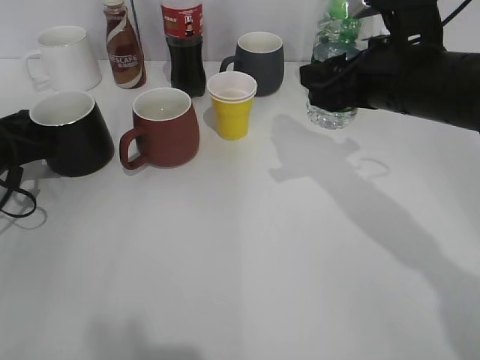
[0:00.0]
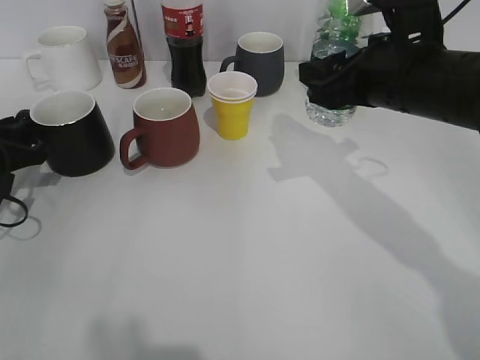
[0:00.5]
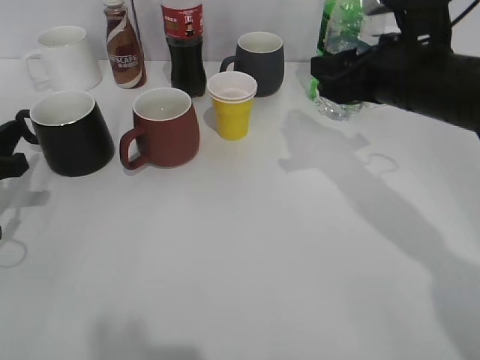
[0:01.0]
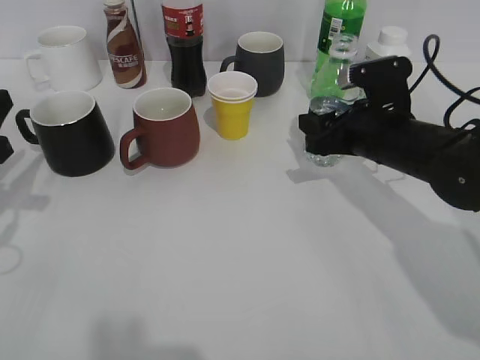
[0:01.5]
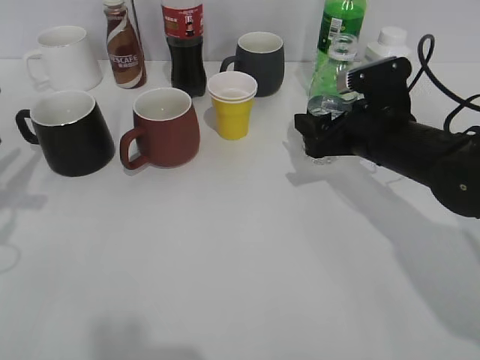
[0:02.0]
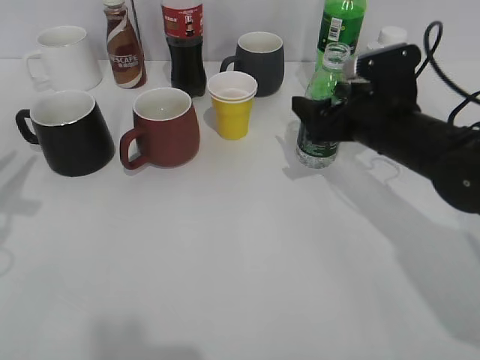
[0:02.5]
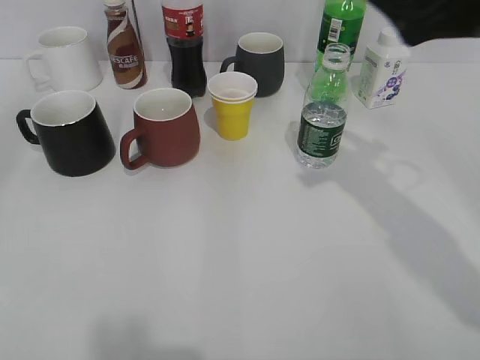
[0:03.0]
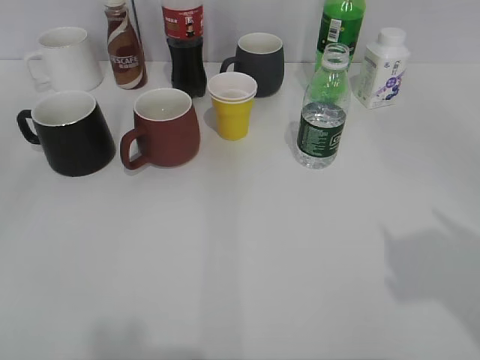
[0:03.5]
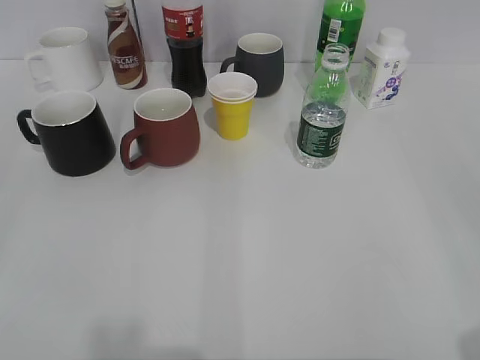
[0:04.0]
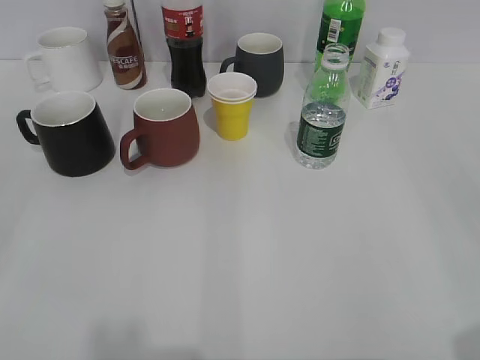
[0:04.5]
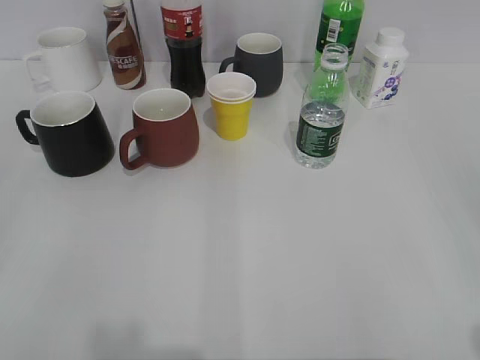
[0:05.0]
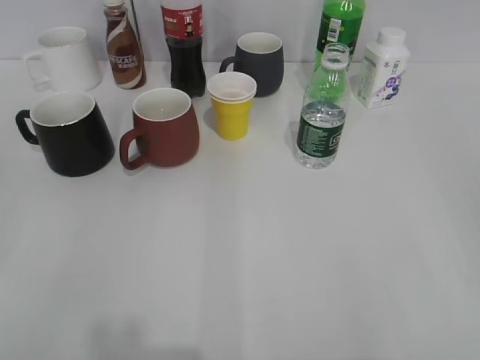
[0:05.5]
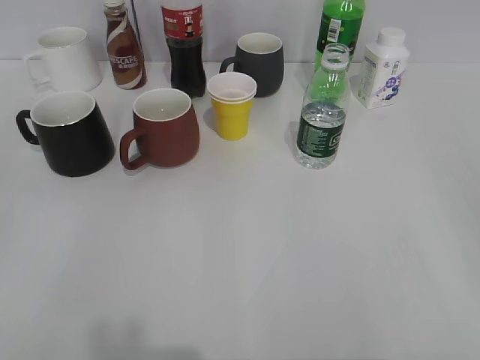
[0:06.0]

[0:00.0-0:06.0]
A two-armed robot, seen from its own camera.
Step, 0:00.5 to 0:02.5: Place the water bottle on the table with right gripper.
0:00.0 to 0:02.0: The right gripper goes approximately 10 cm downward, and opens, while the left gripper travels backward and upward by some 15 cm.
0:02.0 to 0:04.0: The right gripper shifts some 40 cm backward, upward and to the right, and opens. The left gripper heads backward, covering about 25 cm, and opens.

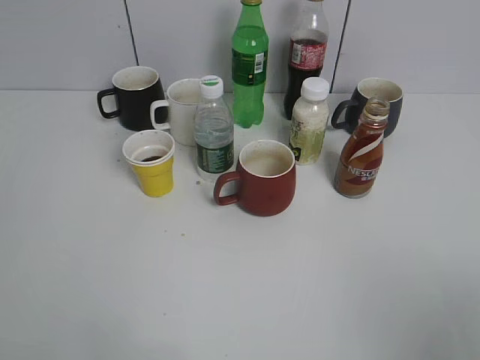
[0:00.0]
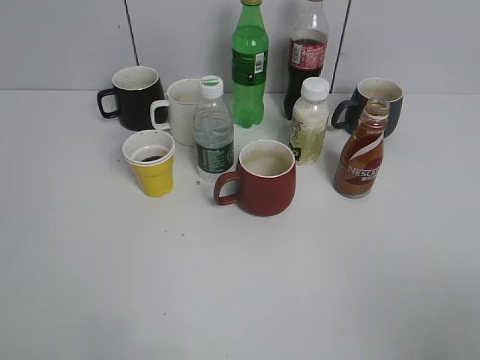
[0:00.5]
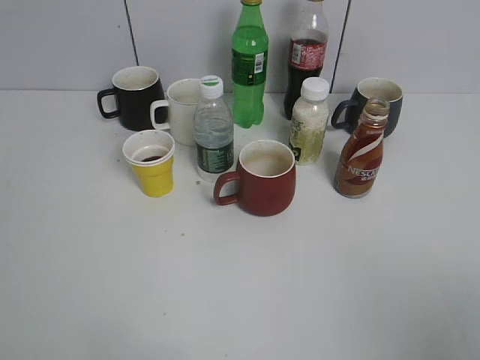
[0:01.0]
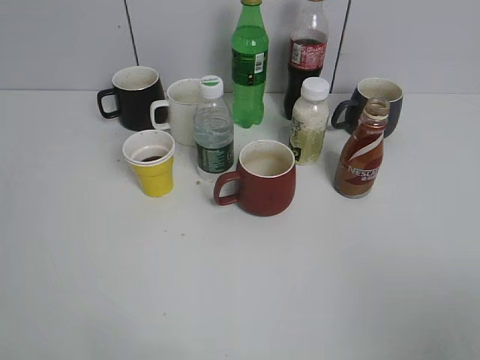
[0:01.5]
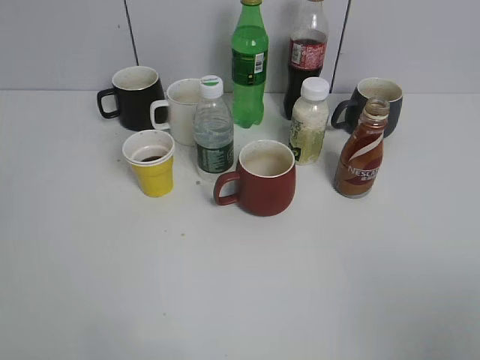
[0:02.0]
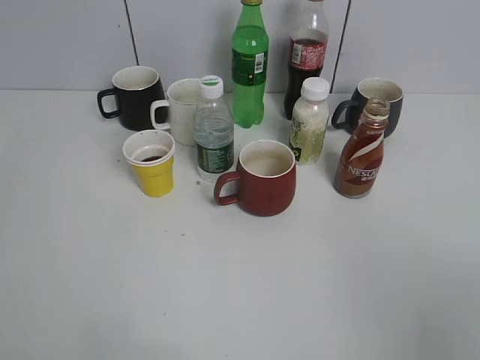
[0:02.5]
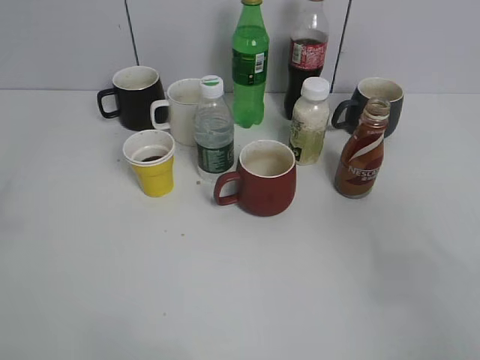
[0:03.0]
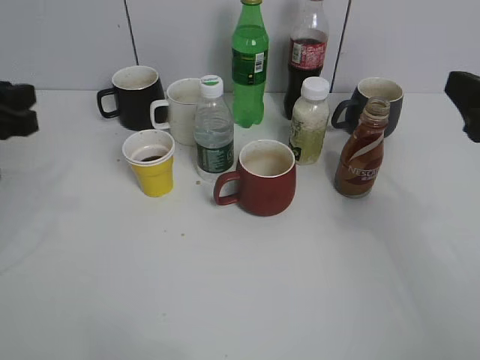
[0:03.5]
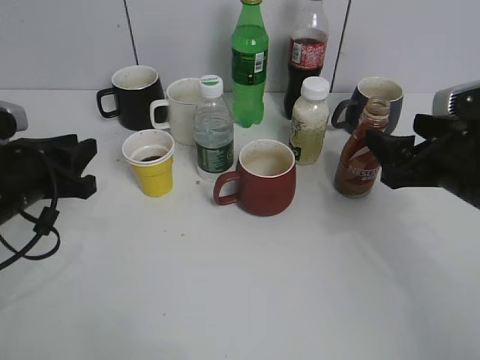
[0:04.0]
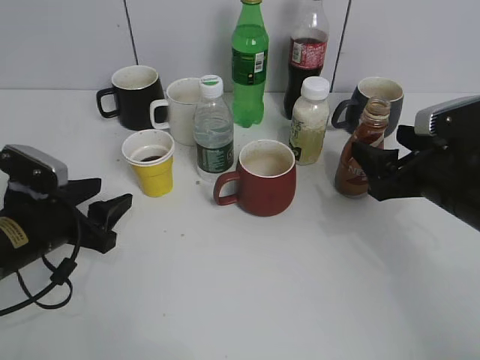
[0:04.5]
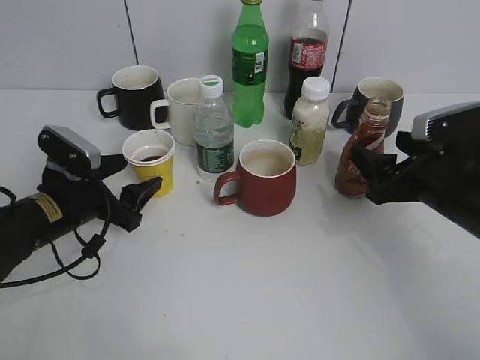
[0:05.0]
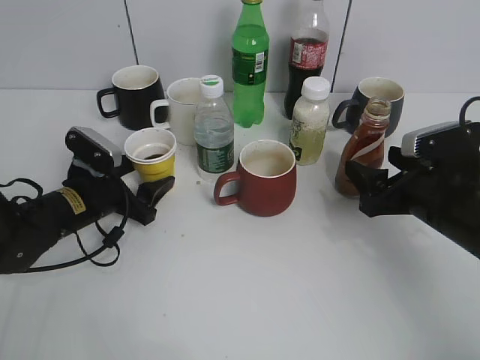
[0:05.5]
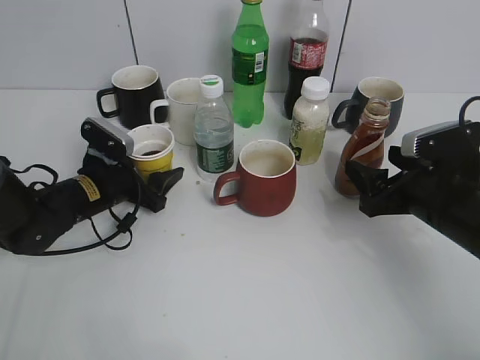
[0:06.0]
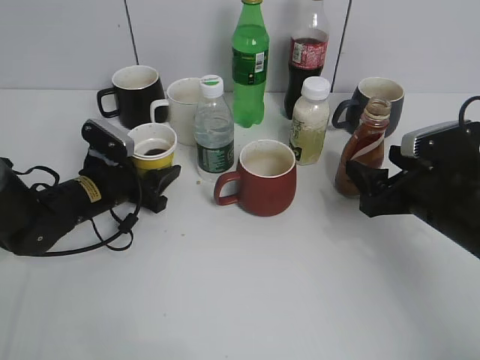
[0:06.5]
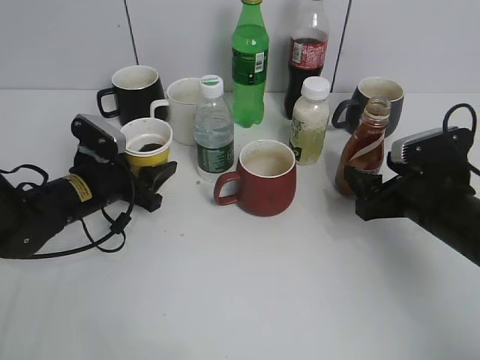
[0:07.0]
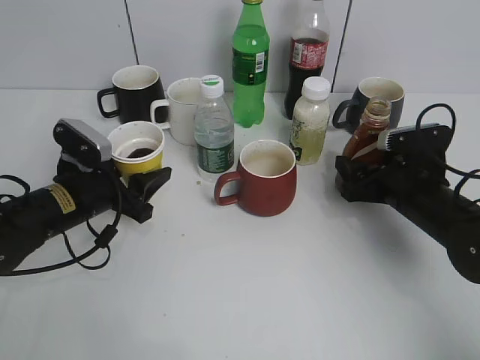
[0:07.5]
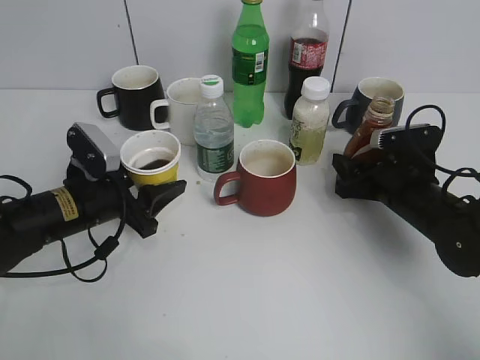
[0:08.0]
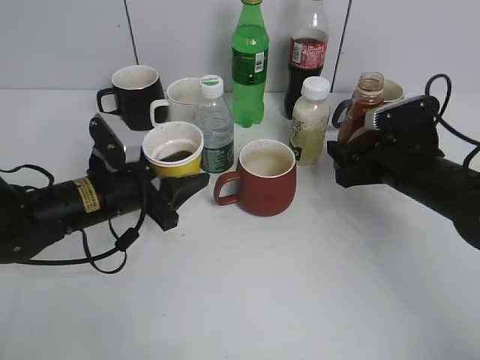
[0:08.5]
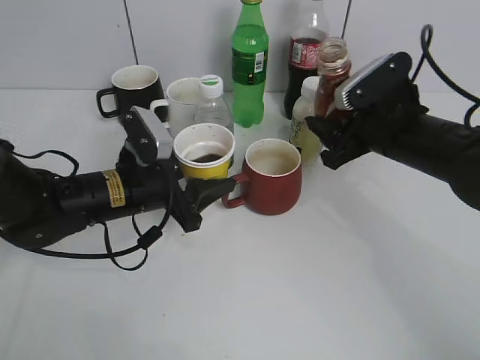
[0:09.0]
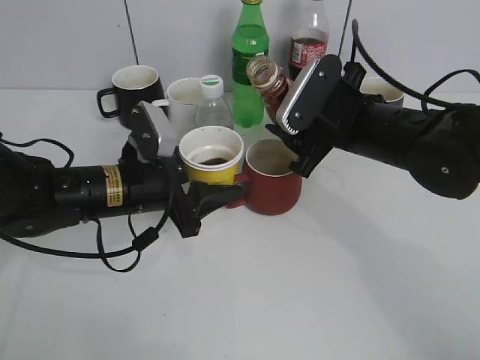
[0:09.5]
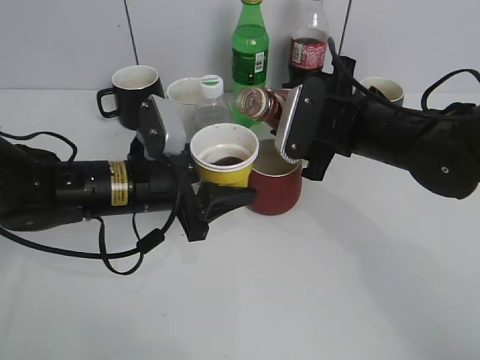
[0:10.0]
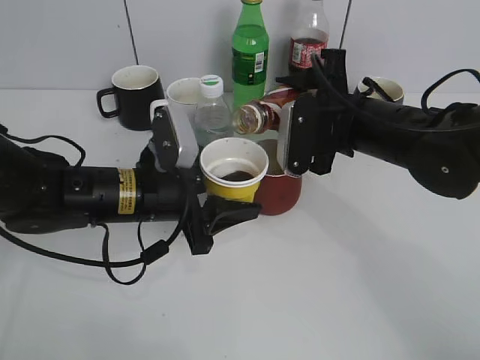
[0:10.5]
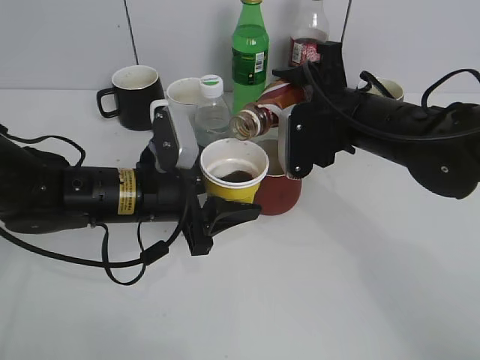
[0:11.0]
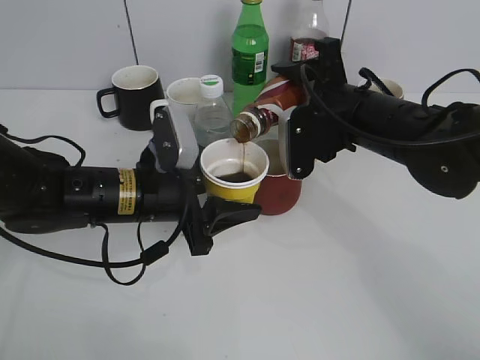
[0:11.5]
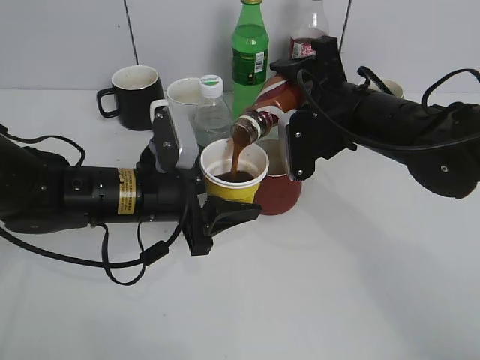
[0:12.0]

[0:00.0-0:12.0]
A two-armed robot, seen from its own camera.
Step, 0:02.5 to 0:05.0: Grasp the yellow paper cup with left gripper.
Step, 0:05.5 to 0:08.0: Grasp the bottle with coffee with right gripper.
0:02.0 to 0:04.0: Both grippers travel together forward and downward, some 30 cm.
0:04.0 to 0:06.0: The right gripper shifts approximately 5 cm downward, while the left gripper goes approximately 15 cm downward and forward, and opens.
0:06.0 to 0:08.0: The left gripper moves backward, roughly 5 cm, and closes its fingers. Meanwhile the right gripper moves forward and downward, about 10 cm, and closes up.
0:08.0 to 0:10.0: The right gripper travels upward and to the left by approximately 15 cm. The left gripper shifts some 10 cm to the right.

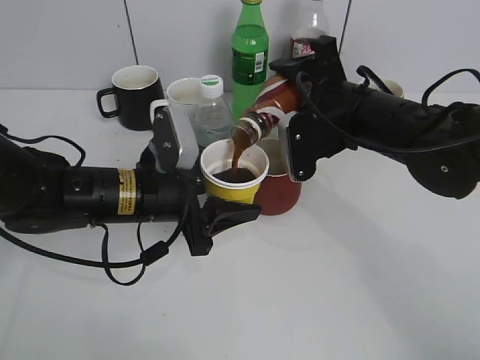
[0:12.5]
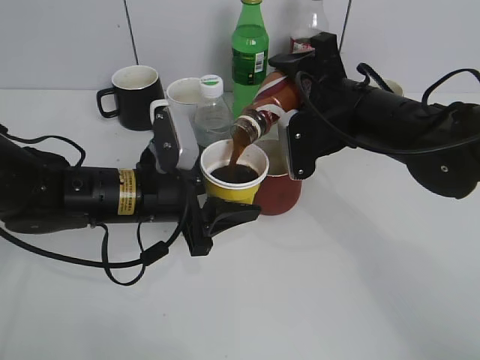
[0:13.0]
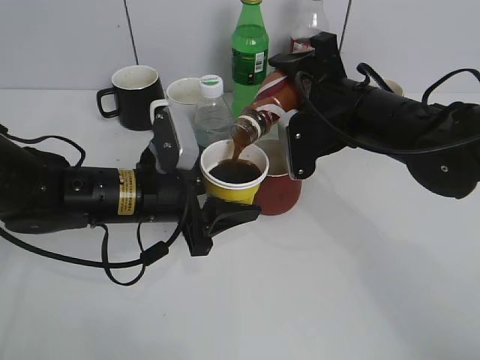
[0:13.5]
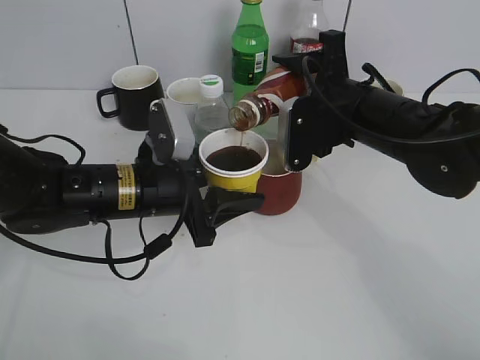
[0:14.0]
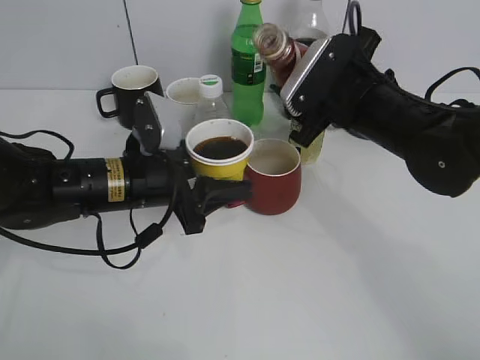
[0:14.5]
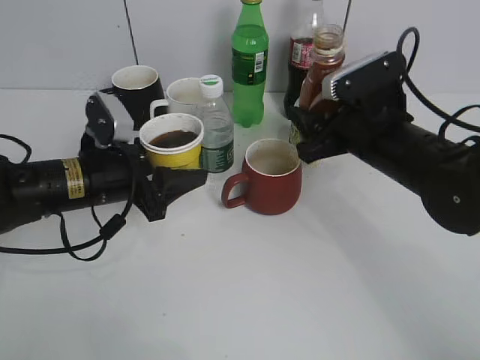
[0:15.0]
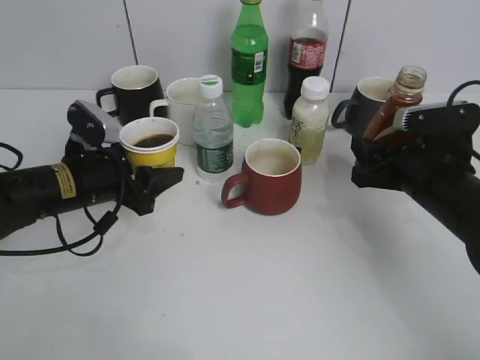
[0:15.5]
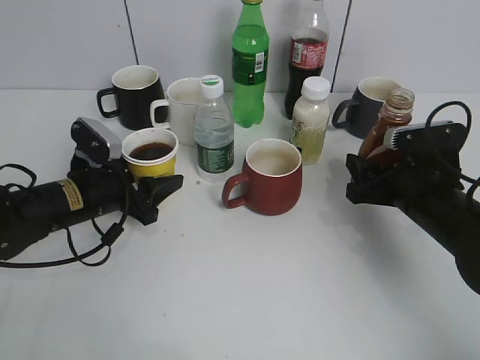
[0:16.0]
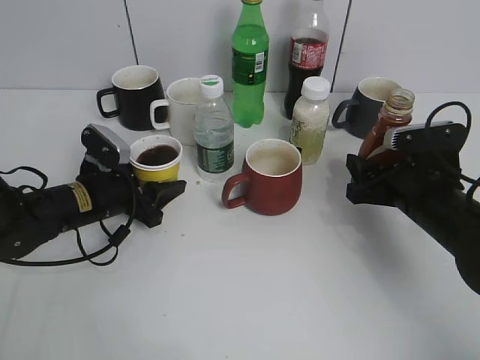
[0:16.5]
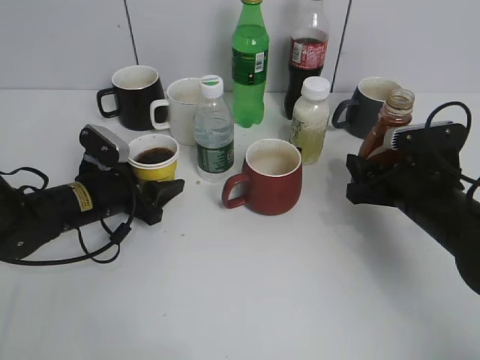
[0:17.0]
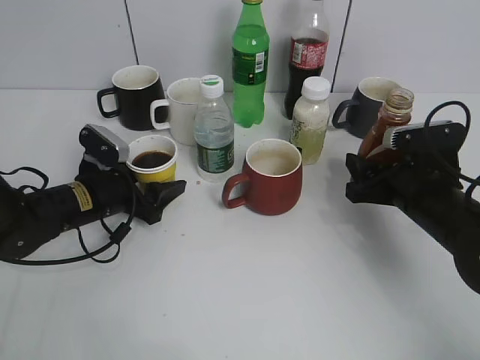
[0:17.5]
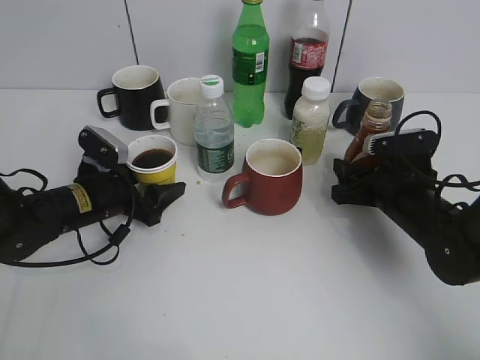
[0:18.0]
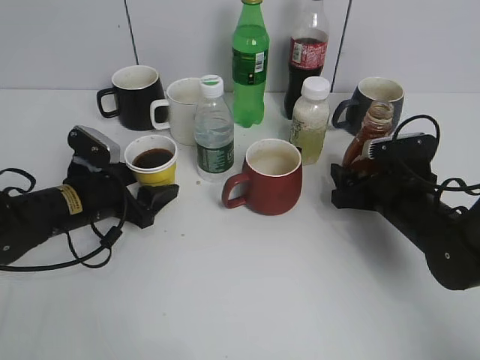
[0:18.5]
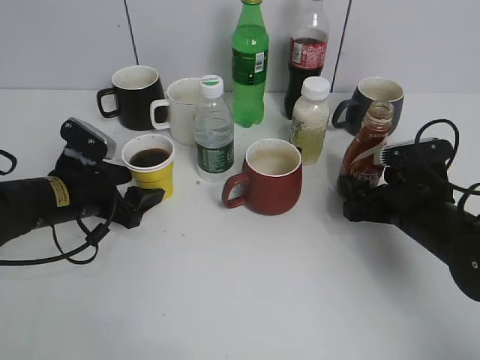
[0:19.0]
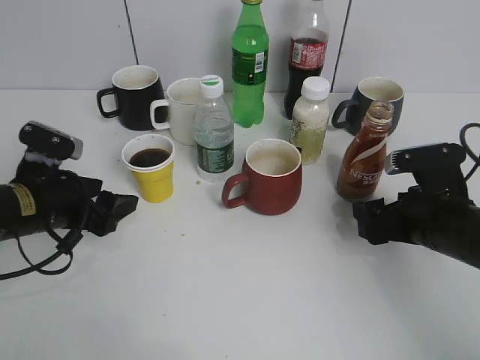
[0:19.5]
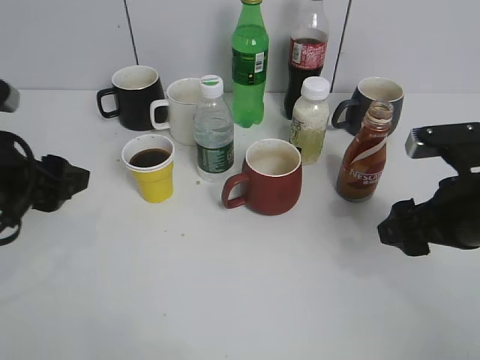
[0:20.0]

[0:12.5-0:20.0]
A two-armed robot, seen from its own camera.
Step, 0:12.5 to 0:14.5: Pour the coffee from bottle to cup with right gripper.
Step, 0:15.0 to 0:18.5: Place the coffee bottle on the table with right gripper.
0:14.5 to 0:16.5: The left gripper shifts roughly 10 cm to the left and downward. Meanwhile the right gripper shifts roughly 15 cm downward and to the right.
0:16.5 to 0:18.0: The left gripper opens its fingers.
0:18.0 to 0:20.0: The two grippers go about 15 cm upward and backward. The right gripper opens.
